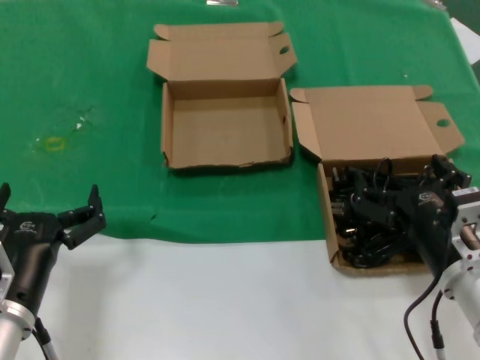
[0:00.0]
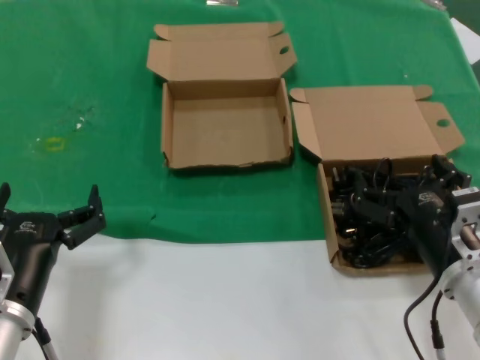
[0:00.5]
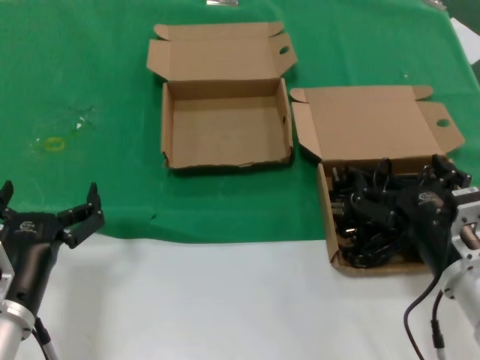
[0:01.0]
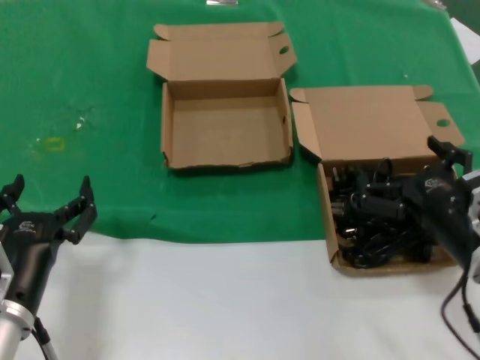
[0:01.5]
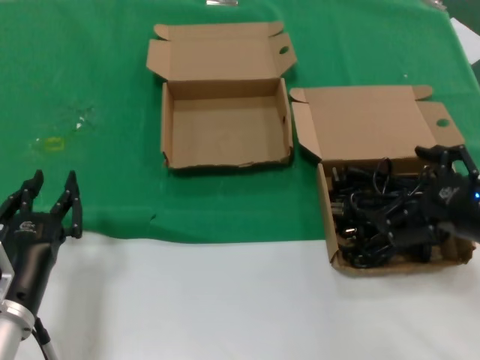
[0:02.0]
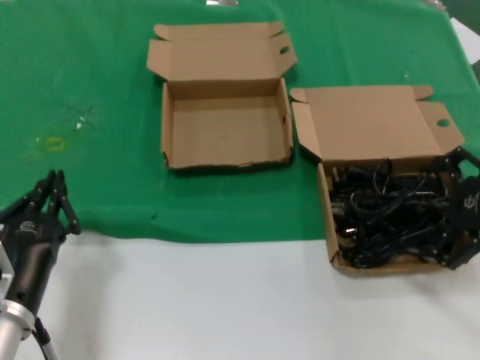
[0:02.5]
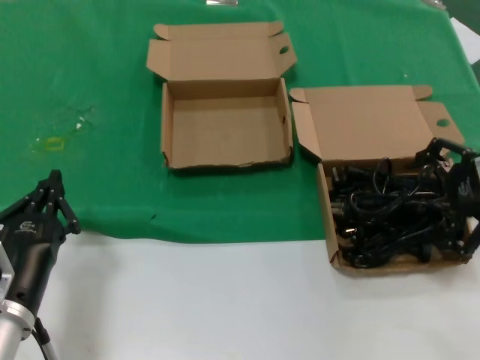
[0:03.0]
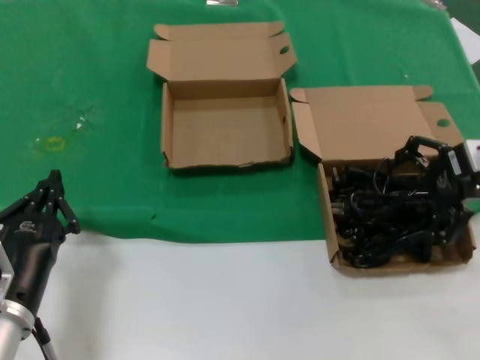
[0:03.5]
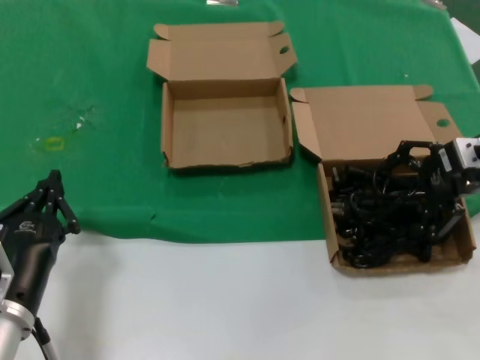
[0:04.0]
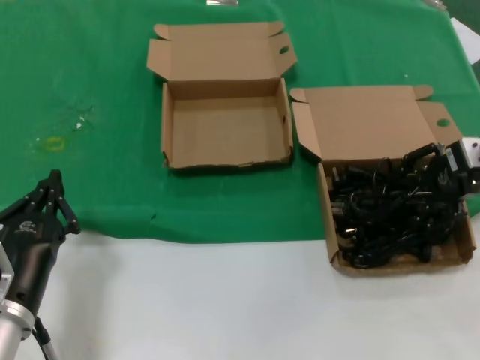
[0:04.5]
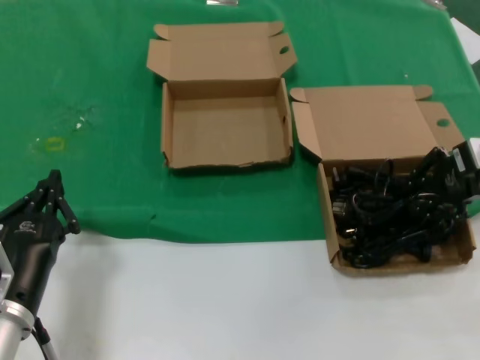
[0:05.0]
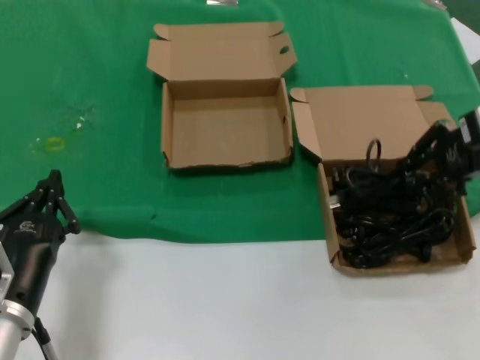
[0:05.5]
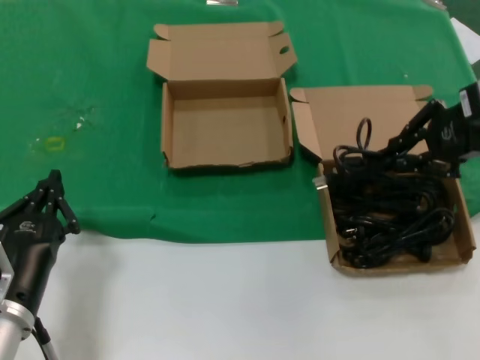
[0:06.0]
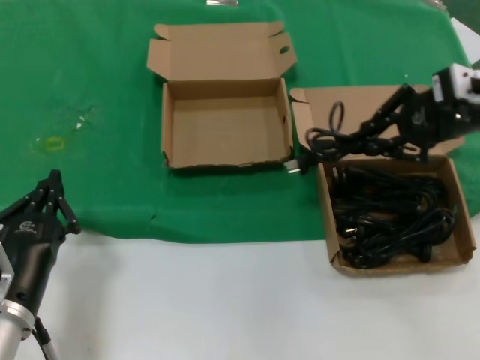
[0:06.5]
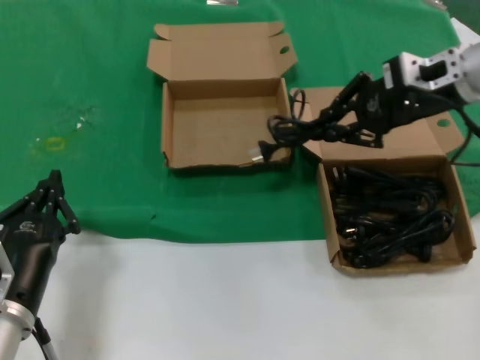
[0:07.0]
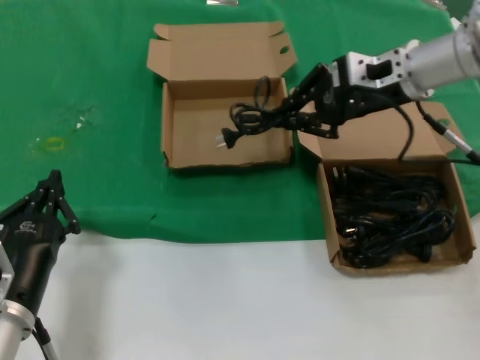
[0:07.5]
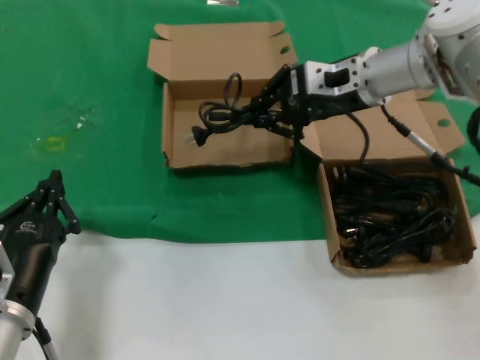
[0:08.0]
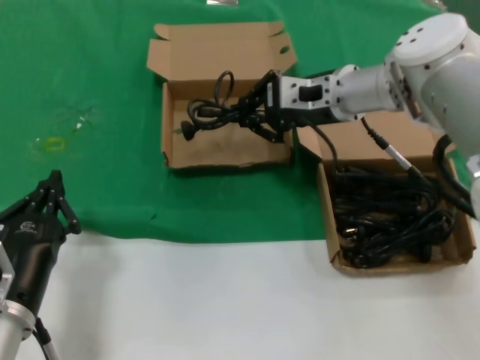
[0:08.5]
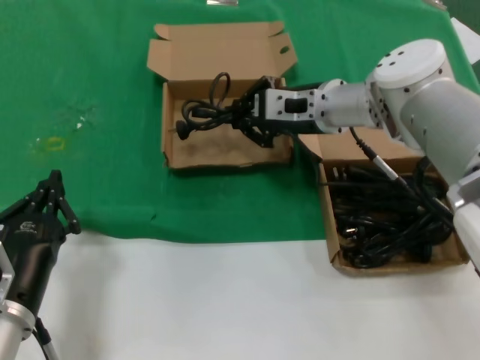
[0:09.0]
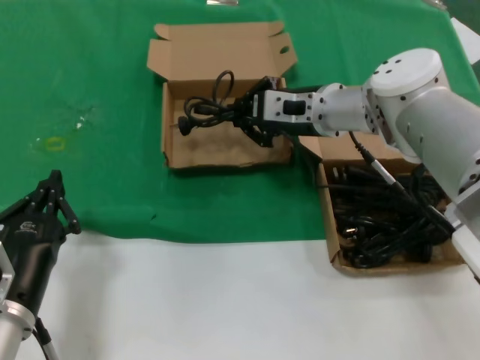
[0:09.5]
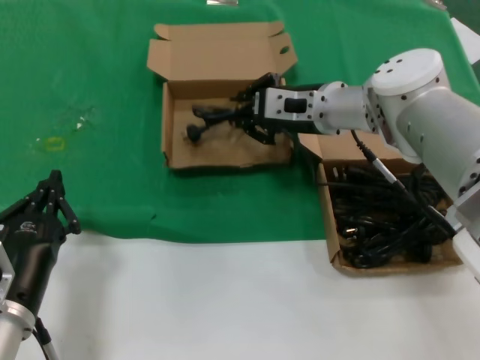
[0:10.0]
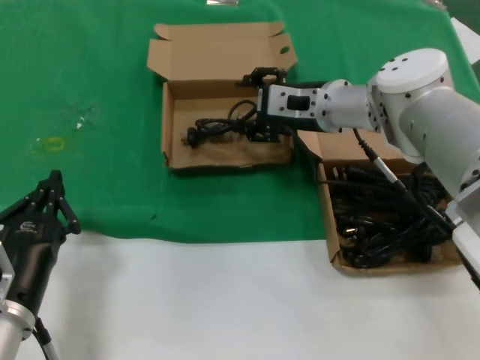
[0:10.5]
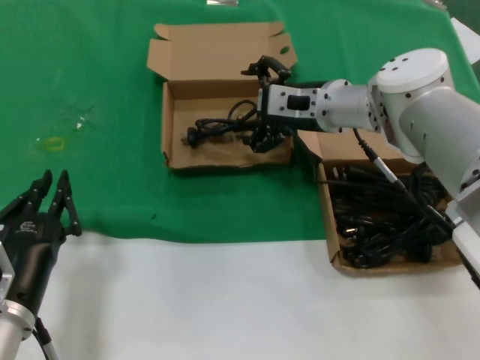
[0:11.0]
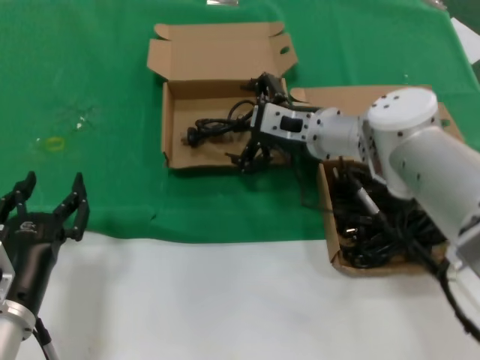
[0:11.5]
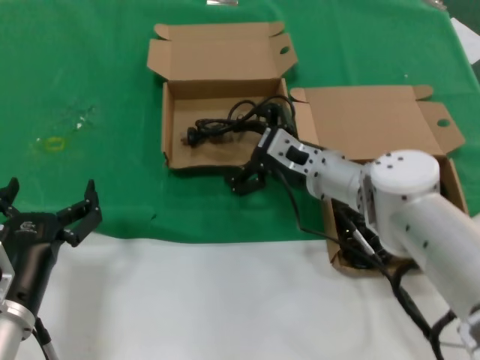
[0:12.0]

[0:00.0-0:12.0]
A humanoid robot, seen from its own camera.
Task of the whole recording: take the parts from the box containing them and put them into an empty box.
Step, 0.0 to 5.0 s: Grasp the data cable.
Step, 5.5 to 10.5 s: Place the data cable in the another box.
0.0 to 2.0 s: The right hand goes approximately 15 cm to the right and upward.
2.0 to 4.0 s: The right hand moves forward and upward, roughly 20 cm.
4.0 to 6.0 s: The right hand travels upward by some 10 cm.
6.0 to 8.0 s: The right hand moves to the left and forward, some 20 cm.
8.0 to 10.0 s: The right hand moves downward and to the left, about 10 cm.
10.0 to 12.0 s: The right hand goes some 10 cm downward.

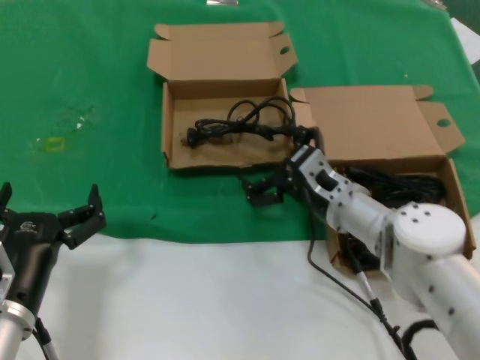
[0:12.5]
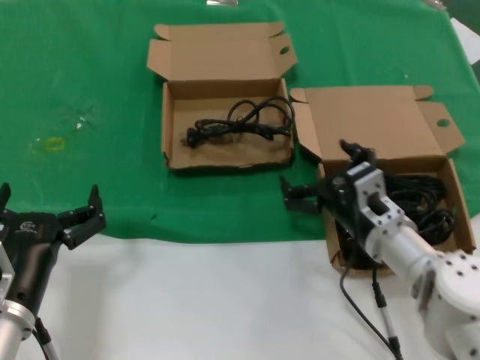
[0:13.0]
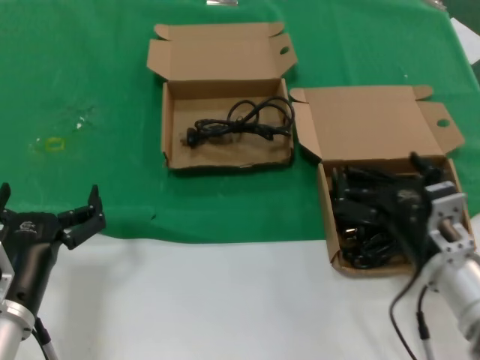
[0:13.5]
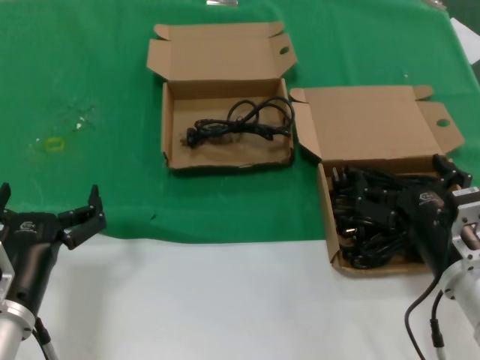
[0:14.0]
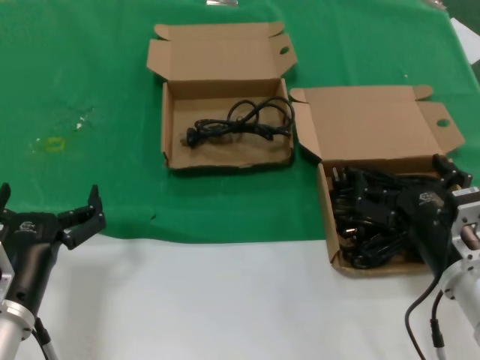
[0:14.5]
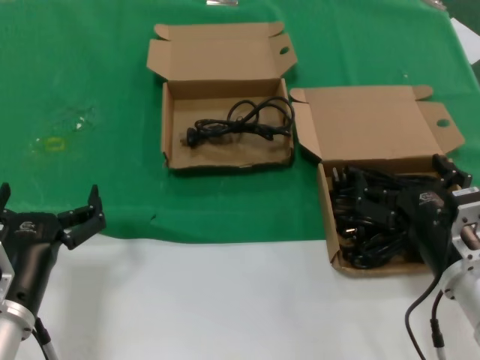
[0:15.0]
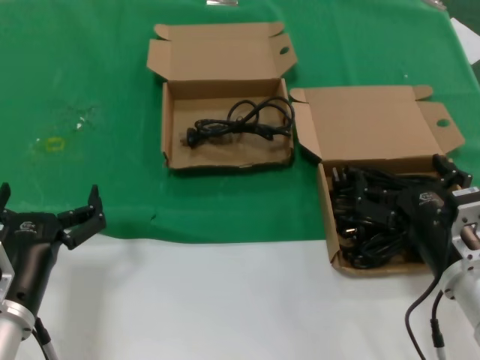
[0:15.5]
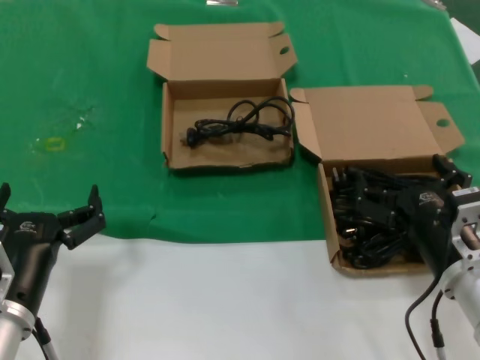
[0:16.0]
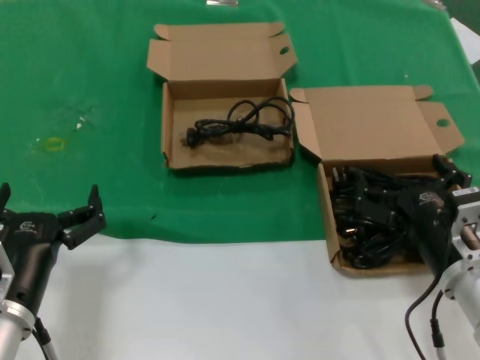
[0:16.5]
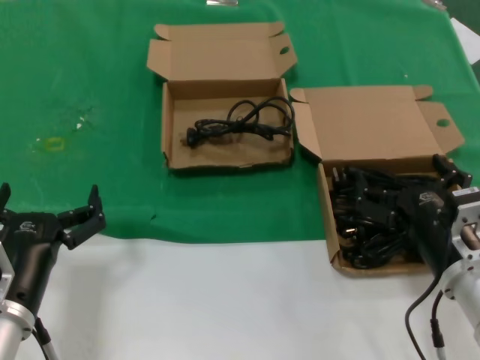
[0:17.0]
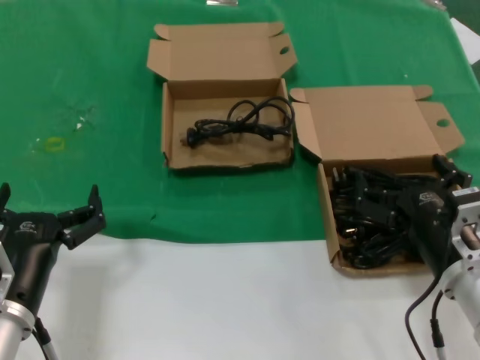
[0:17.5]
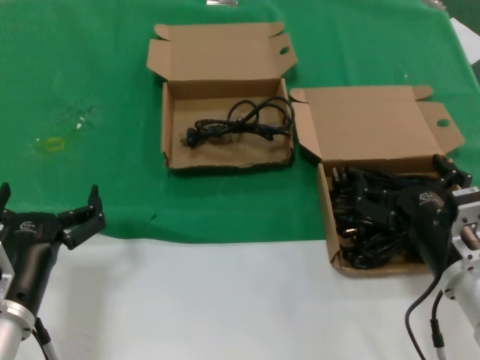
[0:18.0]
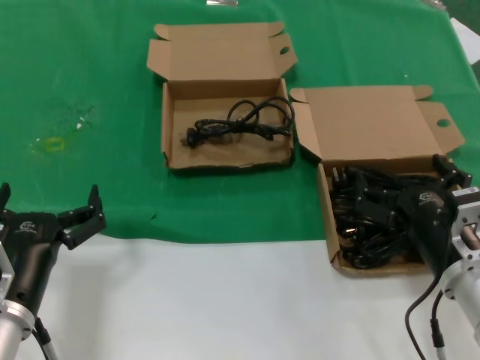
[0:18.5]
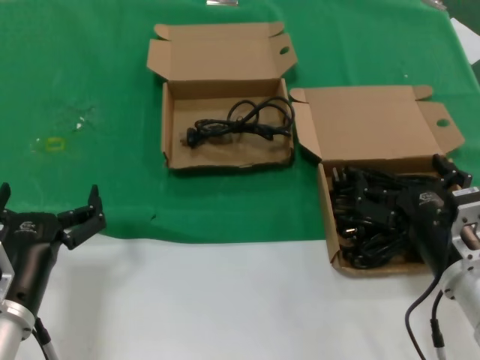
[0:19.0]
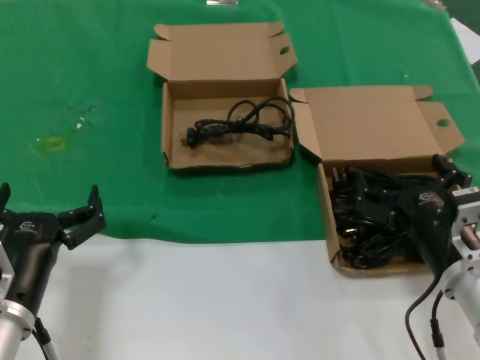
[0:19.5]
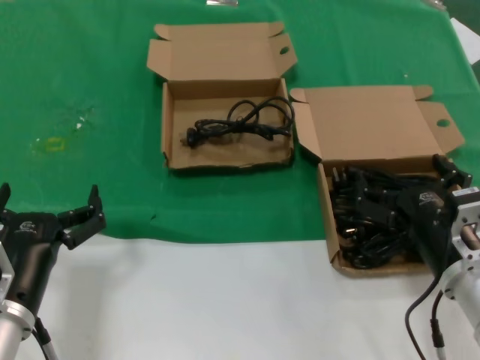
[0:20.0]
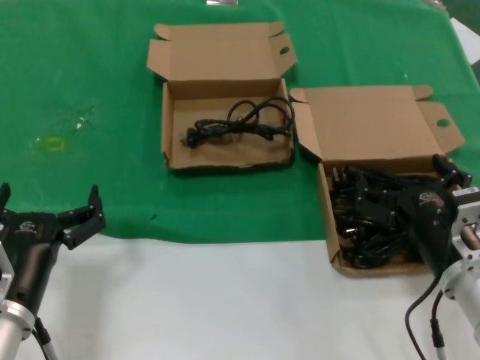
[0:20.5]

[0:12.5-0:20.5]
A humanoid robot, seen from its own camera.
Task of the whole recording: take the parts from the box containing them and put them into an empty box.
12.5 to 14.5 s: The right hand is displaced backward and to the right by some 20 cm.
14.5 to 20.5 s: Both hands stay about where they are.

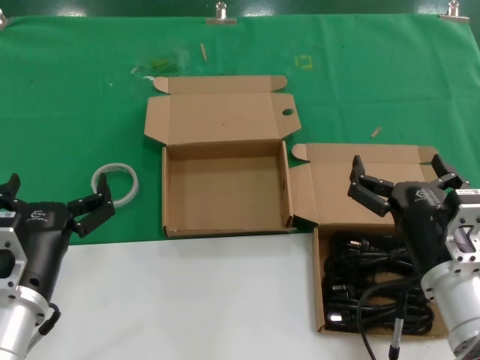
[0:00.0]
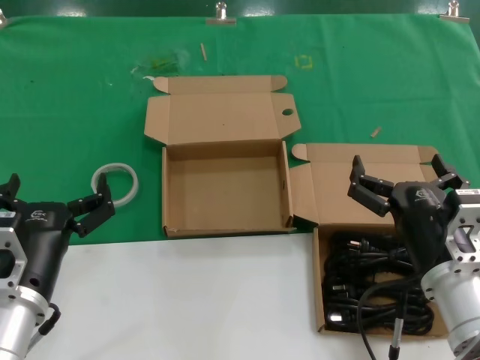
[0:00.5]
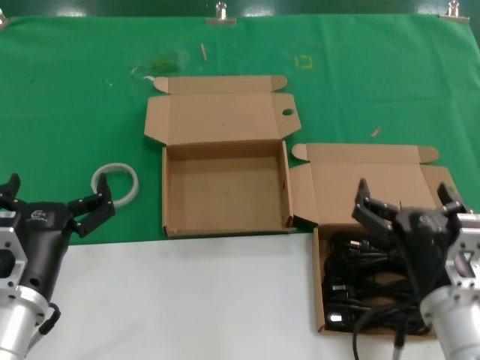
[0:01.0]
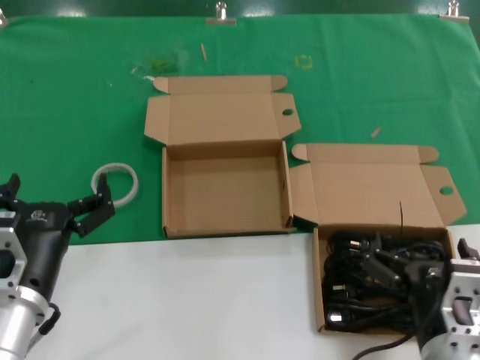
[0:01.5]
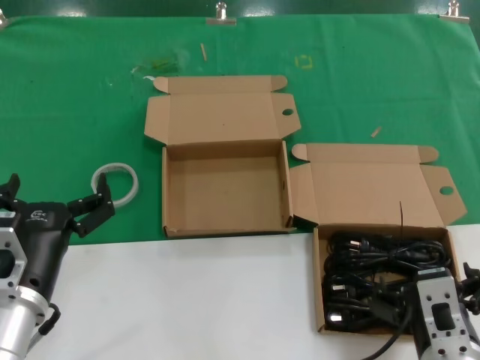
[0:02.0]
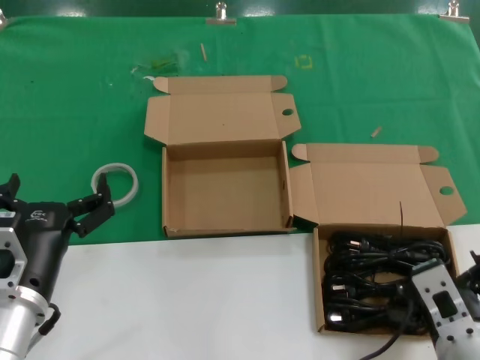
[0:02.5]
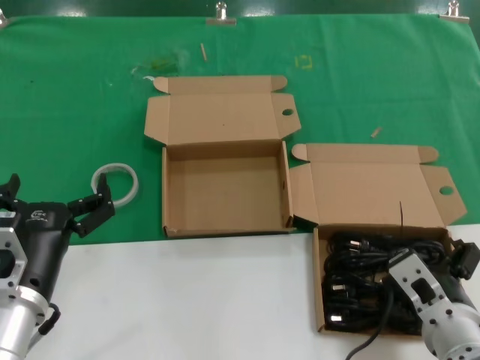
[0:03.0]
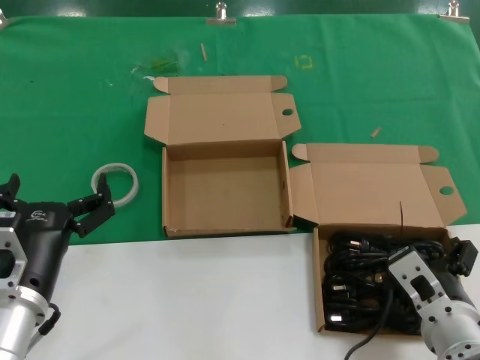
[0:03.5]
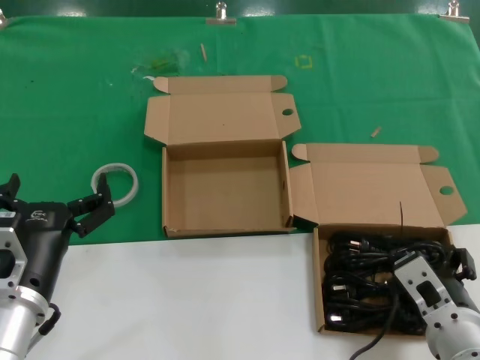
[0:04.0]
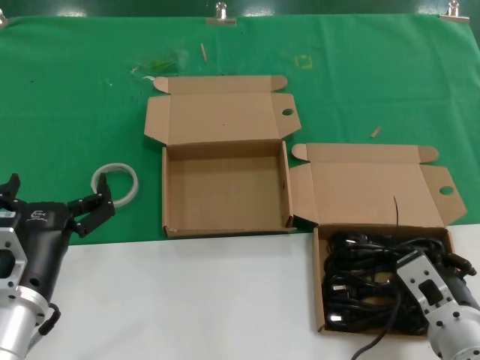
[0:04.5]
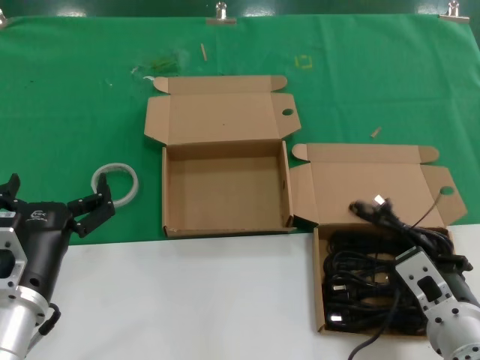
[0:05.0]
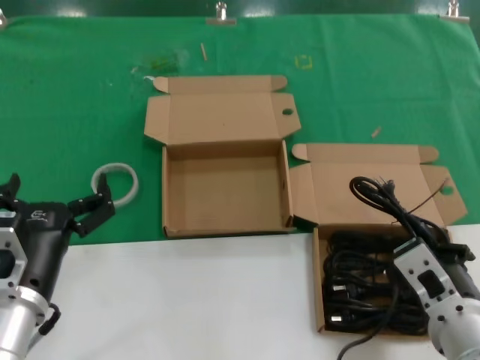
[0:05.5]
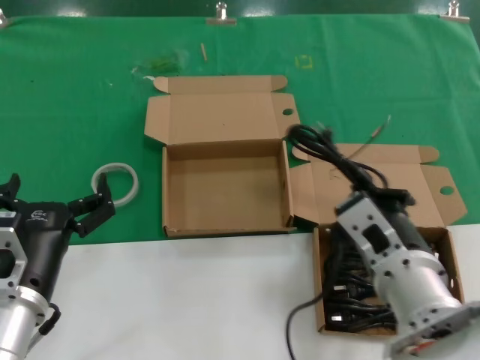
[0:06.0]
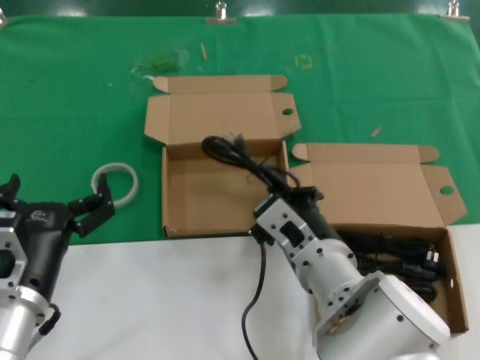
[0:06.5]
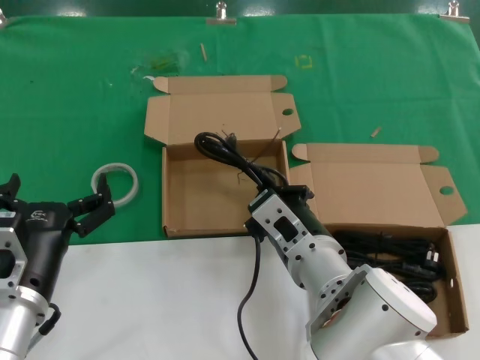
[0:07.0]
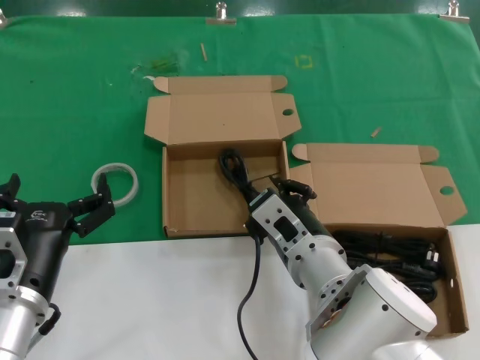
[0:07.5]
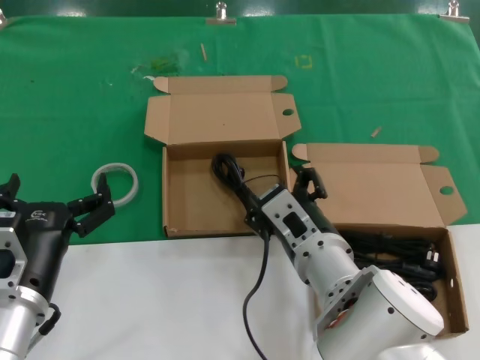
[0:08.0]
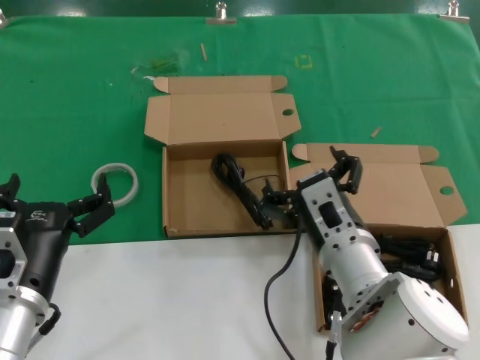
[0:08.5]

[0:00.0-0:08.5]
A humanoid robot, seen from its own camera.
Task of the whole recording: take the parts from the box containing them and put them into an empty box.
Step, 0.0 to 4.5 s: Grasp the data cable.
Step, 5.5 to 7.0 s: Place the data cable in the another box.
0.0 to 2.0 s: The right hand goes some 10 cm backward.
2.0 to 4.0 s: The right hand shifts by approximately 5 cm.
4.0 to 6.5 s: The right hand heads to the left and forward, covering about 15 cm.
6.5 to 8.5 s: The hands make only small movements.
